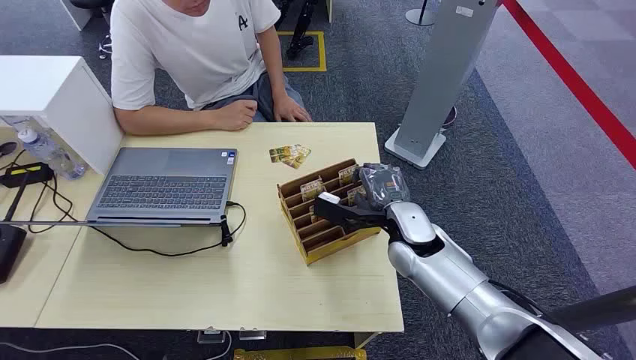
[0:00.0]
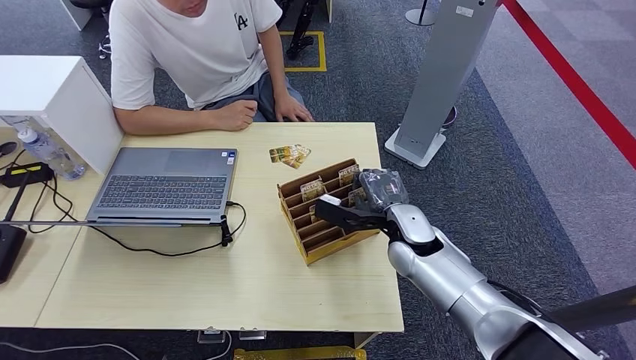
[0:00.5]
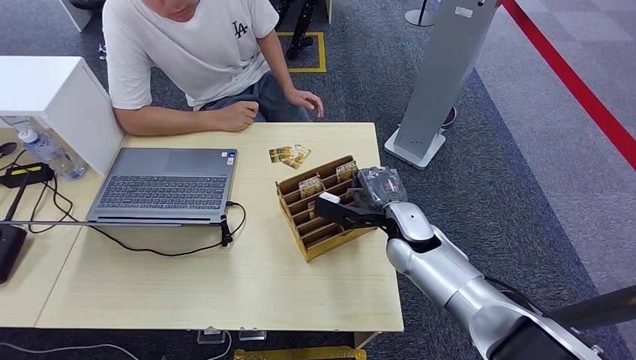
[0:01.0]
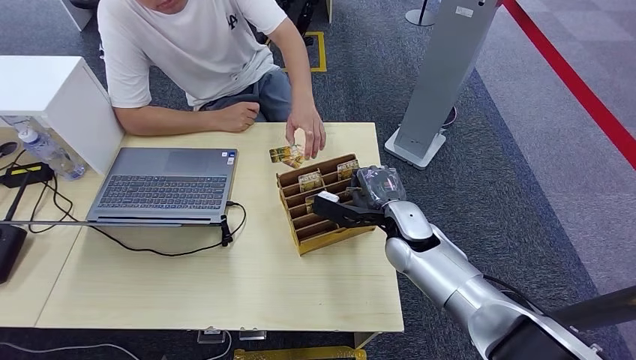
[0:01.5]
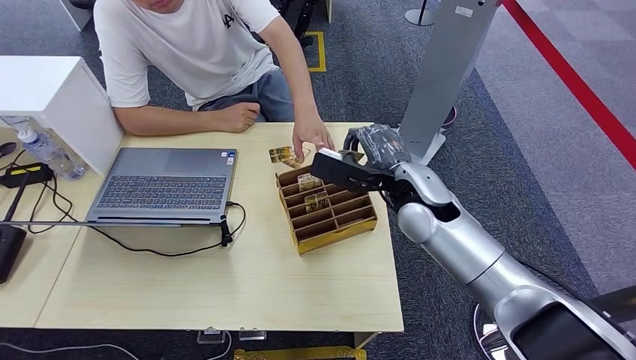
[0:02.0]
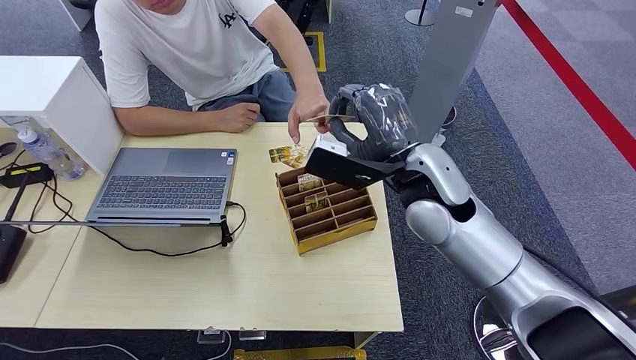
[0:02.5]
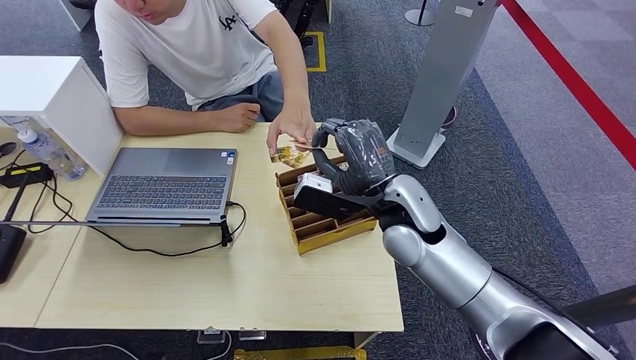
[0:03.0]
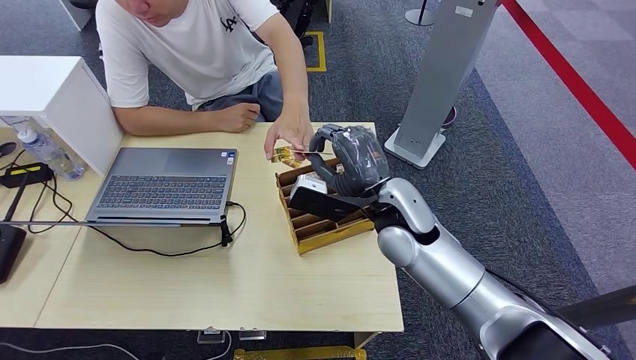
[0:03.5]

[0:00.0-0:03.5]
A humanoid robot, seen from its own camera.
Step, 0:00.0 to 0:01.5: Pick up the room card from the card holder.
Step, 0:02.0 to 0:03.5: Hand the room card to the target.

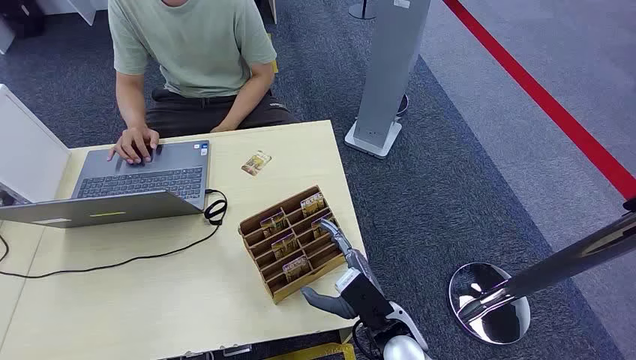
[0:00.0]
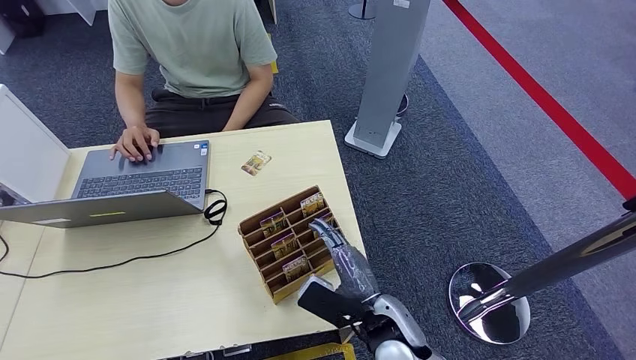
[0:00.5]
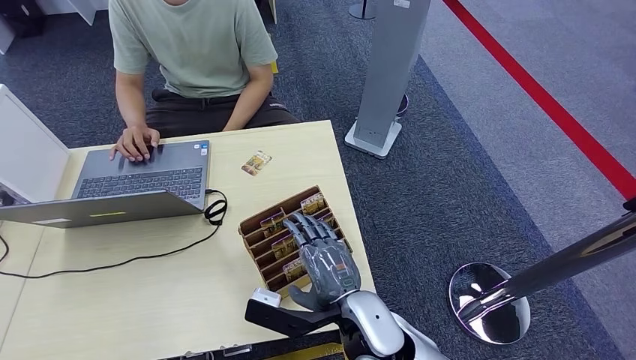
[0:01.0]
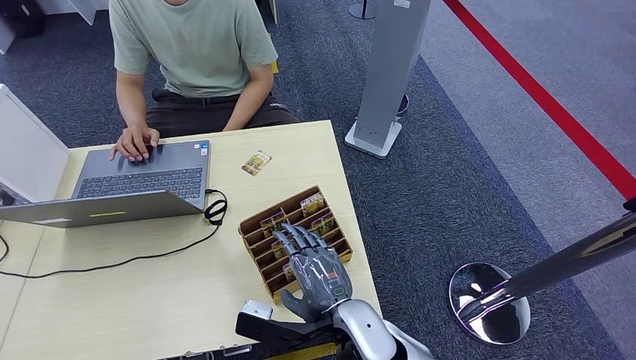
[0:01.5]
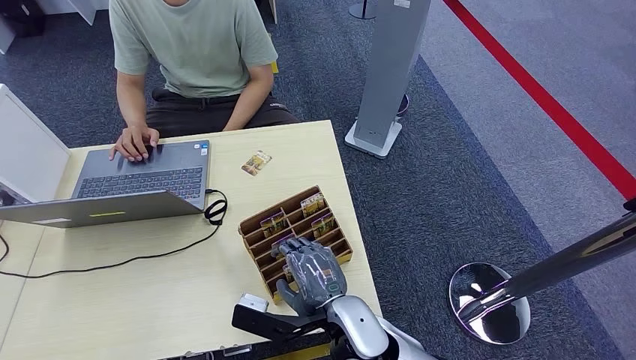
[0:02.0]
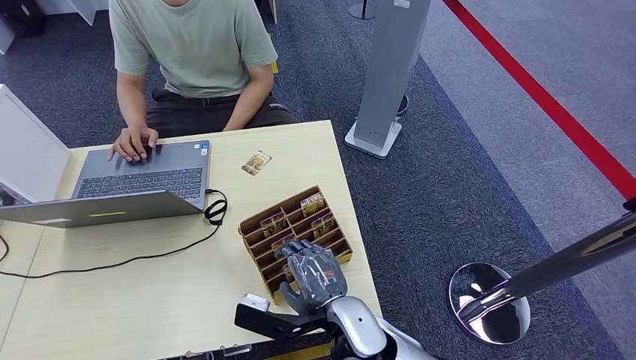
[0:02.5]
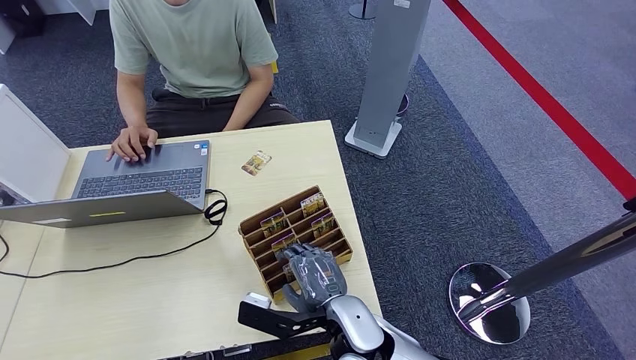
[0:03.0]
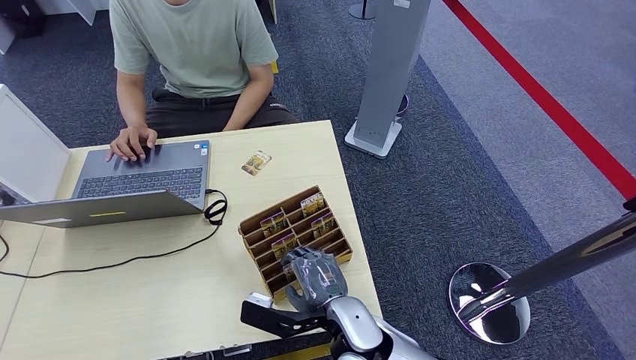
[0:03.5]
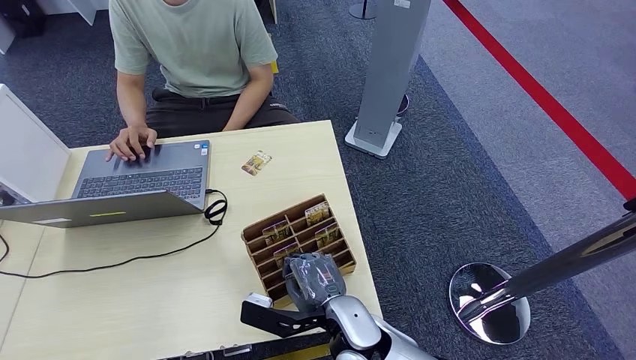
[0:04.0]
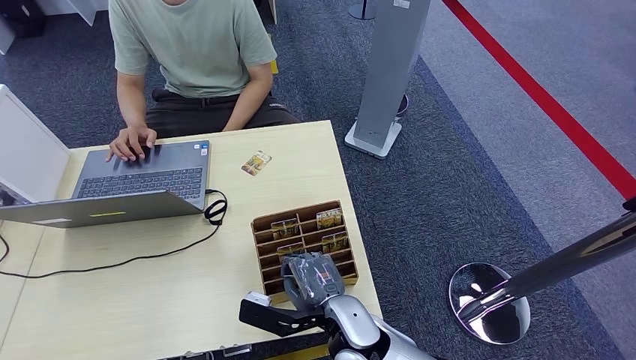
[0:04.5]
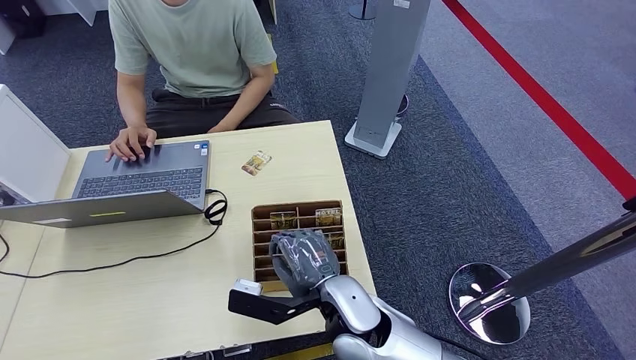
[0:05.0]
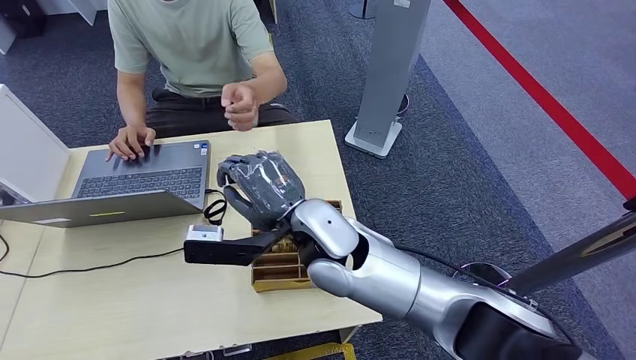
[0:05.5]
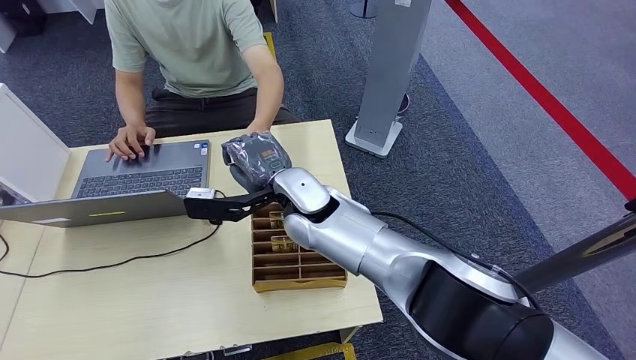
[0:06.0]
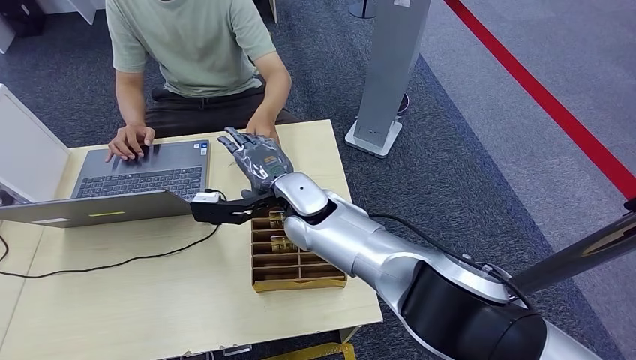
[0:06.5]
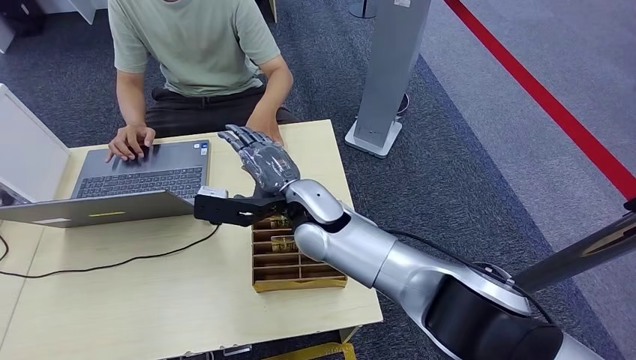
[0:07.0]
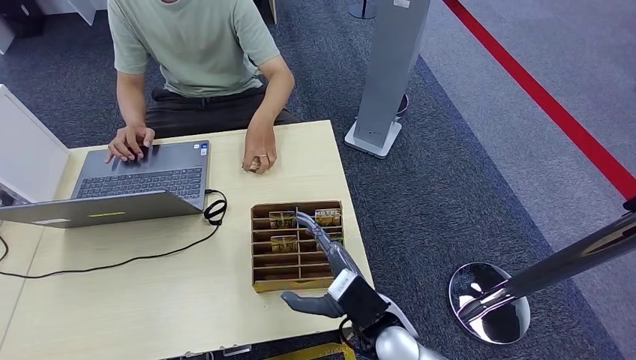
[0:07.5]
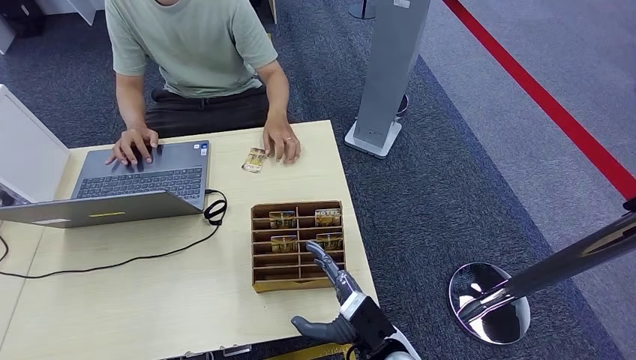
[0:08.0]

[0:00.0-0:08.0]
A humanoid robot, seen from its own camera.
Step, 0:00.0 to 0:05.0: Pick up the room card from the card holder.
Step, 0:05.5 to 0:08.0: Hand the room card to the target.
0:02.0 to 0:04.0: The hands stay close to where they were, moving slightly.
0:04.0 to 0:06.0: The right hand is displaced forward, upward and to the left by approximately 20 cm.
0:06.0 to 0:08.0: The right hand travels backward, downward and to the right by approximately 30 cm.
